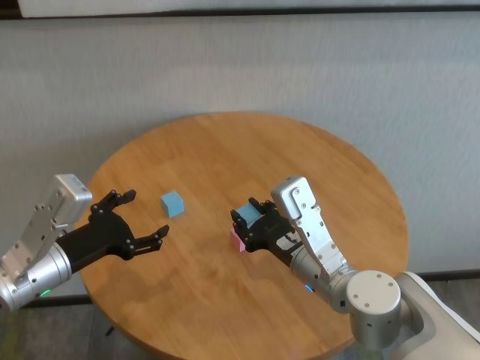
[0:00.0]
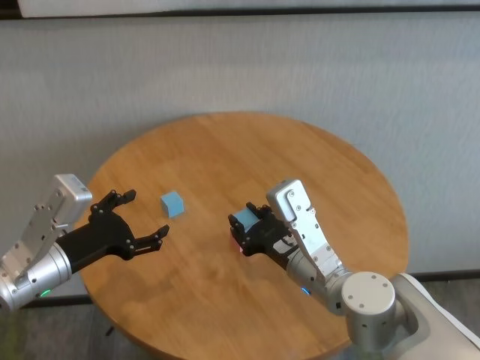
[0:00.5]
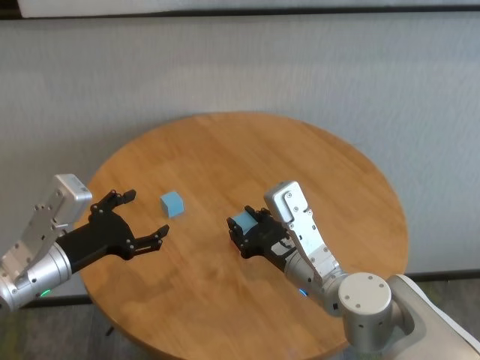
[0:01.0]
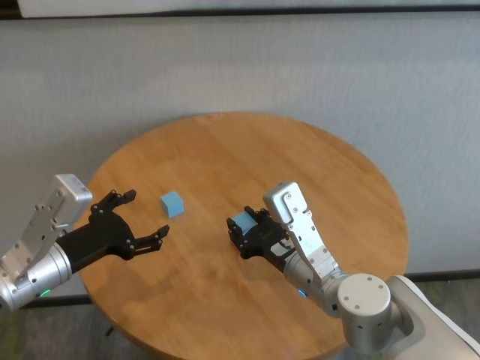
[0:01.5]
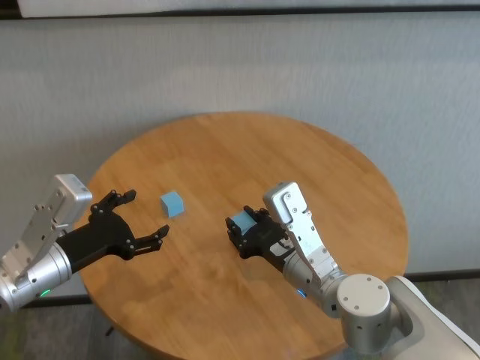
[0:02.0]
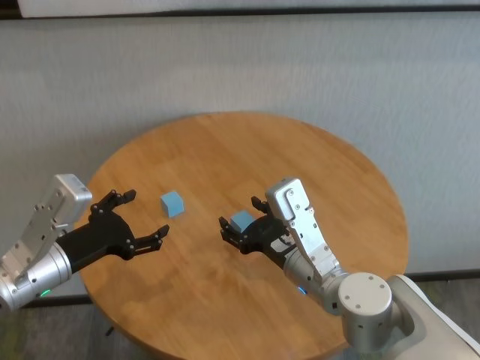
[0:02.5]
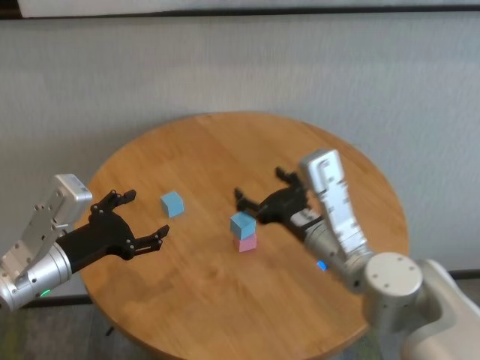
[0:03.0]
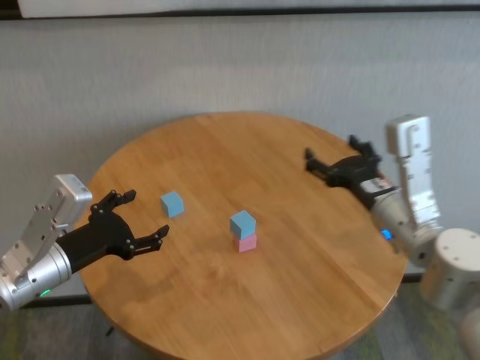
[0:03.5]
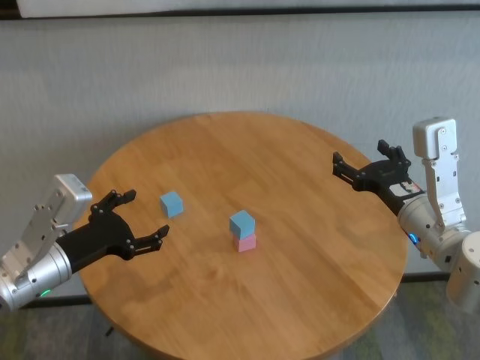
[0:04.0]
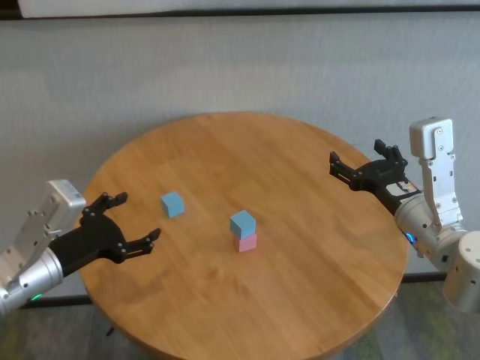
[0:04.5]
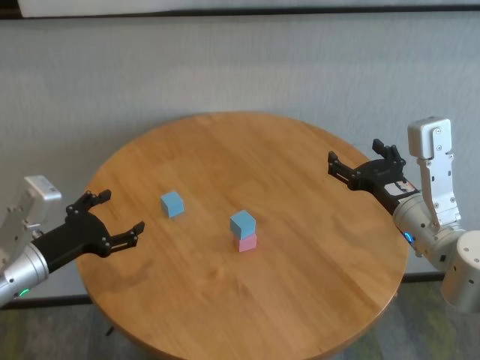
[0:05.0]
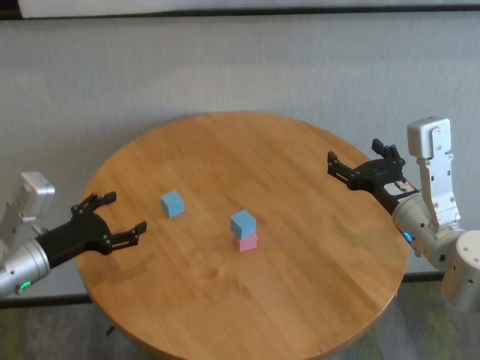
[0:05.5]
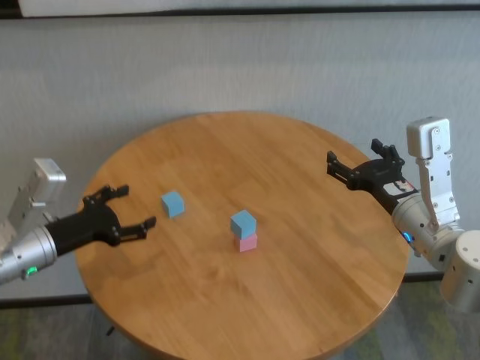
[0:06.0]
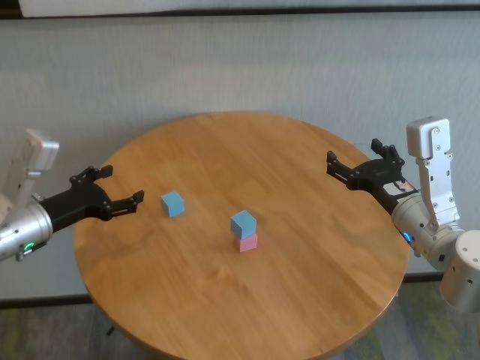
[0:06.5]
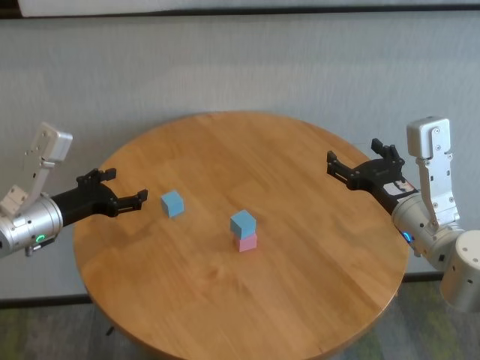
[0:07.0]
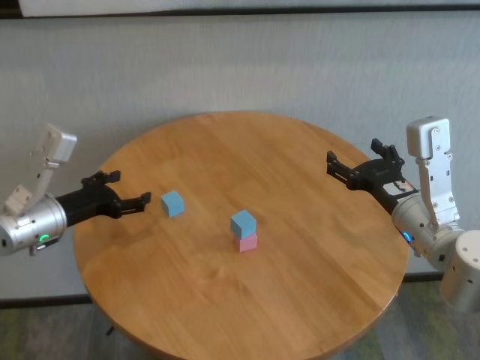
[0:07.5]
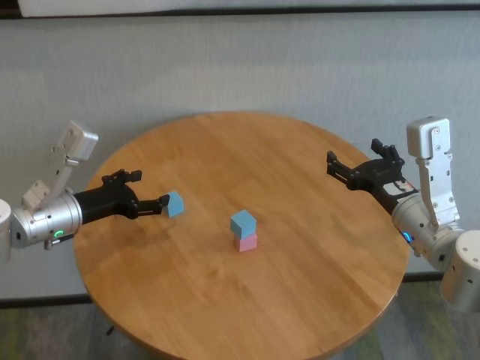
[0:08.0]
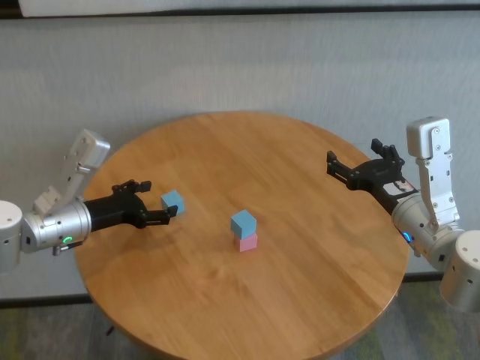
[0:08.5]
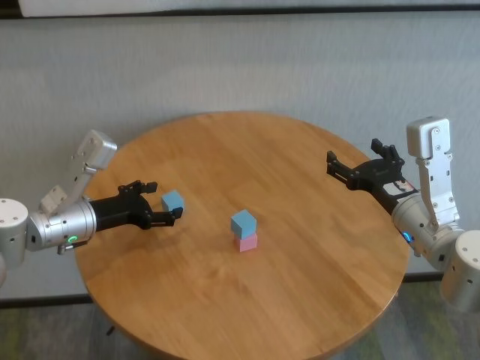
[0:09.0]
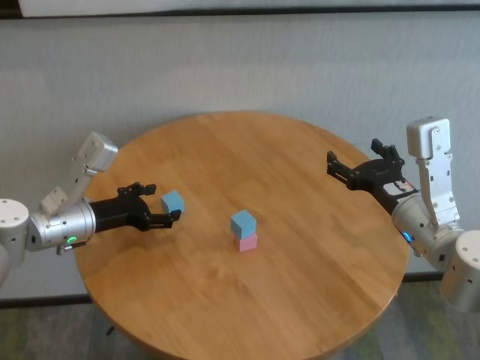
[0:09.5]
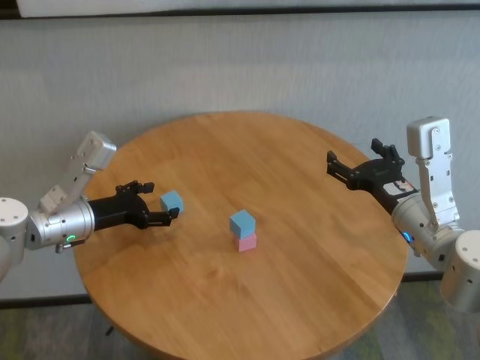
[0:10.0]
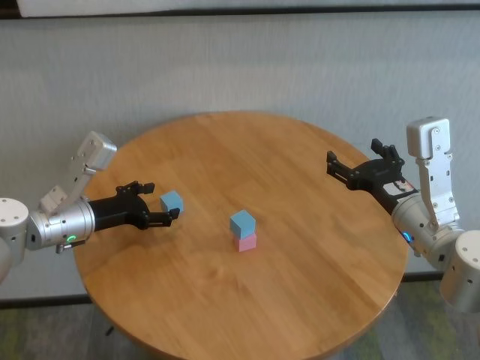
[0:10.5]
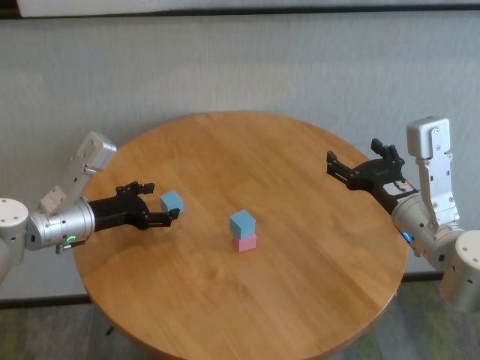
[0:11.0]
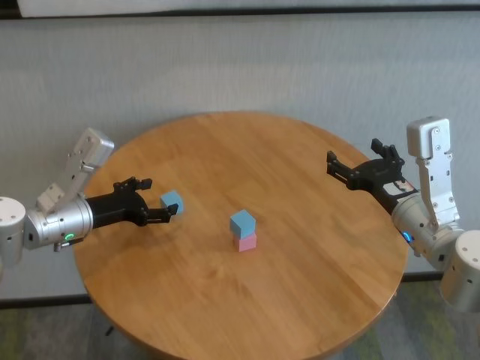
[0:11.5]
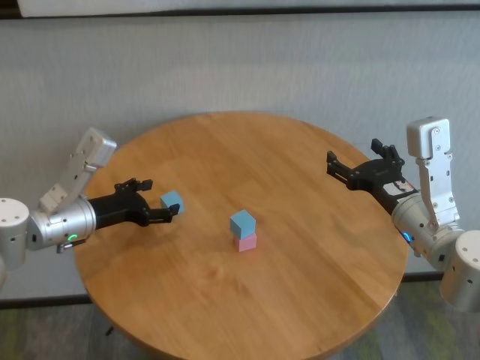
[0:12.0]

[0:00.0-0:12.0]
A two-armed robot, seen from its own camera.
Task of the whole recording: stack building blocks on the table.
Step, 0:00.0 to 0:02.0: Place the blue building block on the pink building blocks with right gripper.

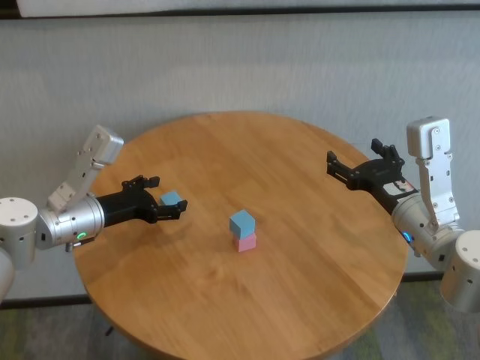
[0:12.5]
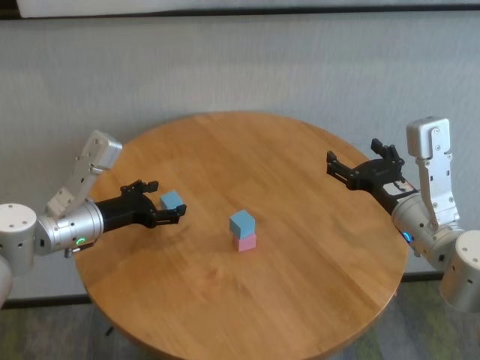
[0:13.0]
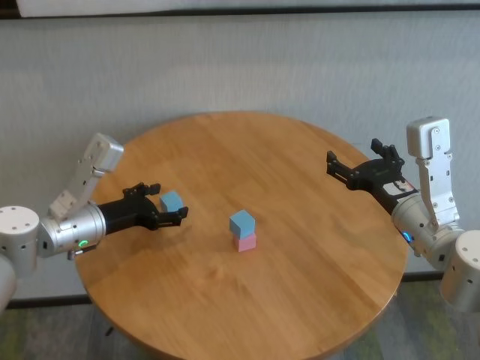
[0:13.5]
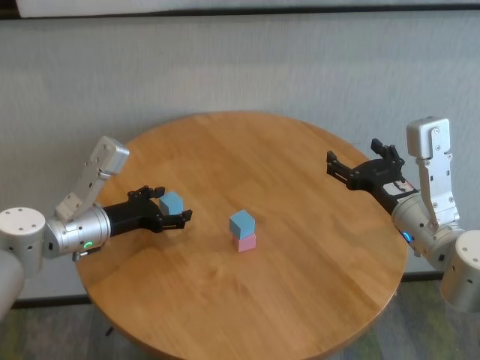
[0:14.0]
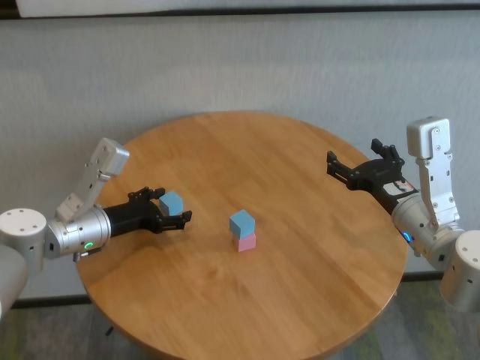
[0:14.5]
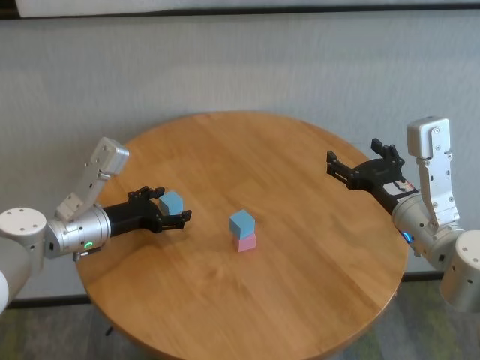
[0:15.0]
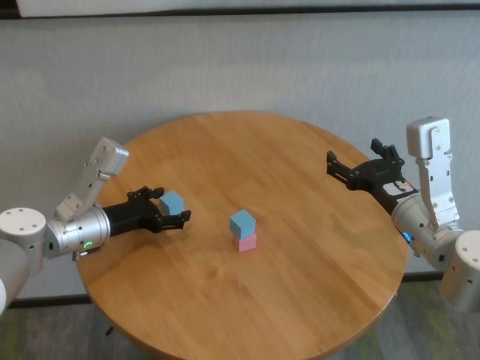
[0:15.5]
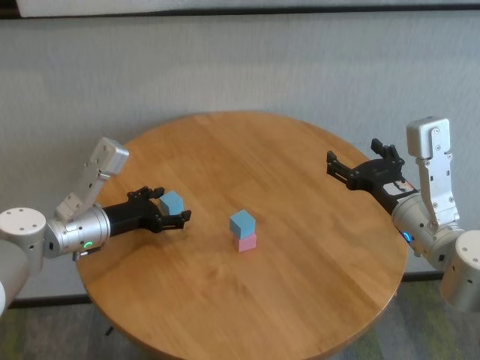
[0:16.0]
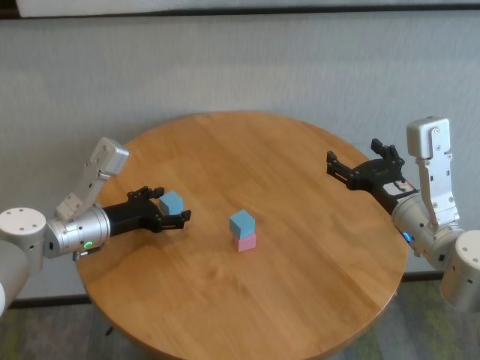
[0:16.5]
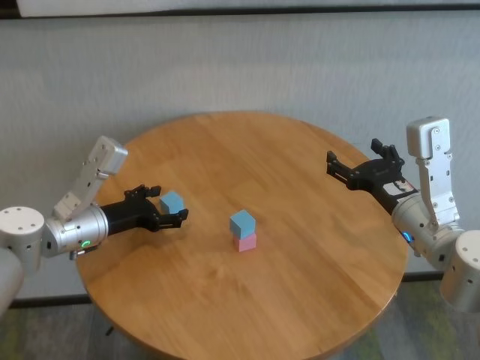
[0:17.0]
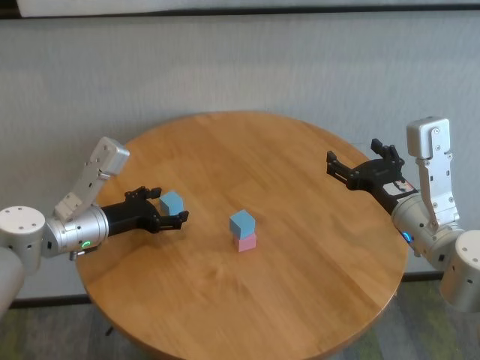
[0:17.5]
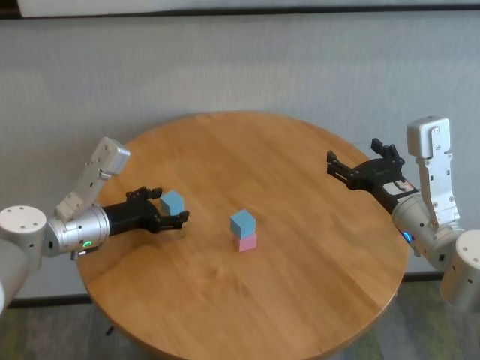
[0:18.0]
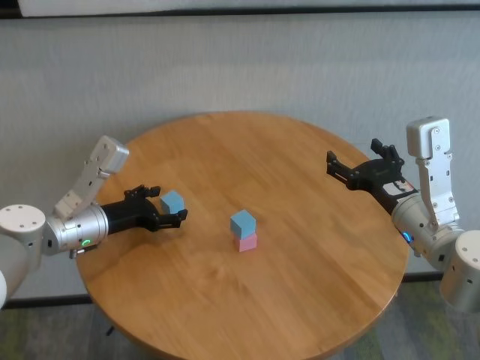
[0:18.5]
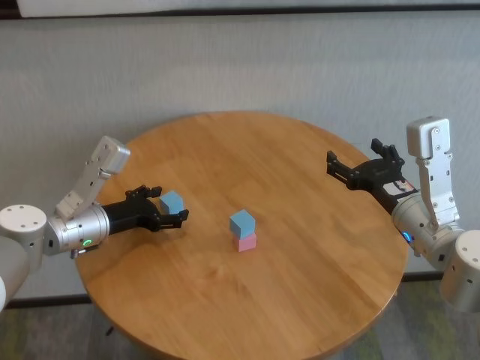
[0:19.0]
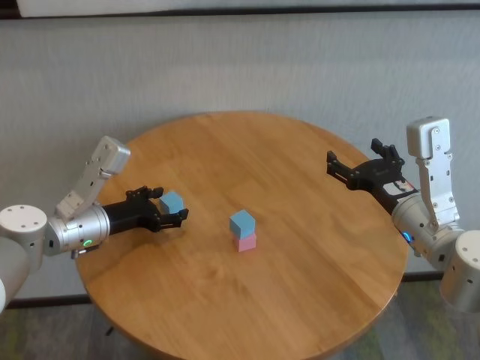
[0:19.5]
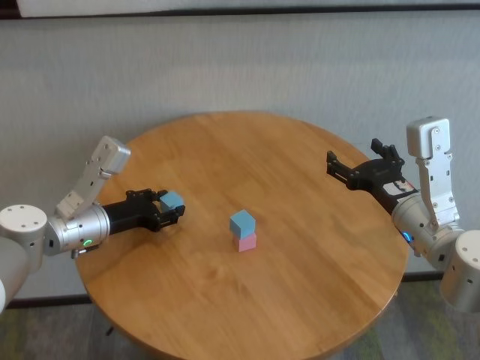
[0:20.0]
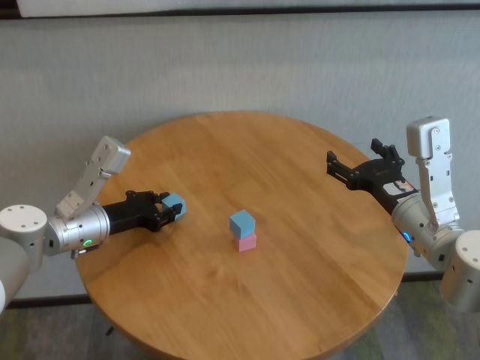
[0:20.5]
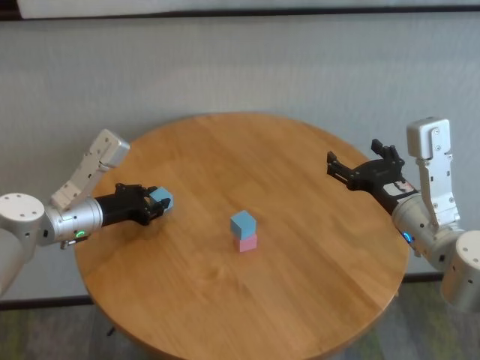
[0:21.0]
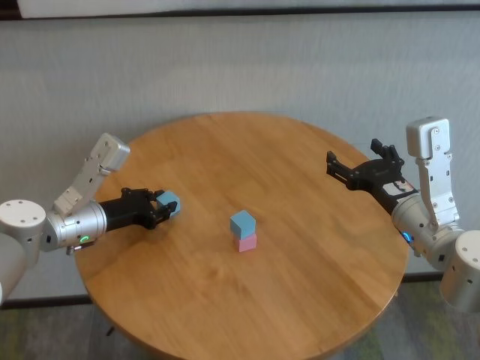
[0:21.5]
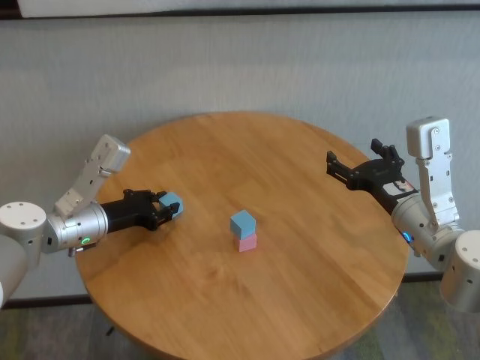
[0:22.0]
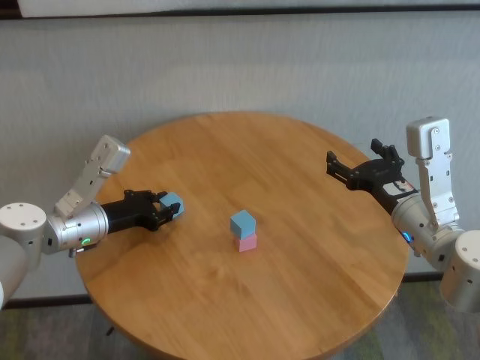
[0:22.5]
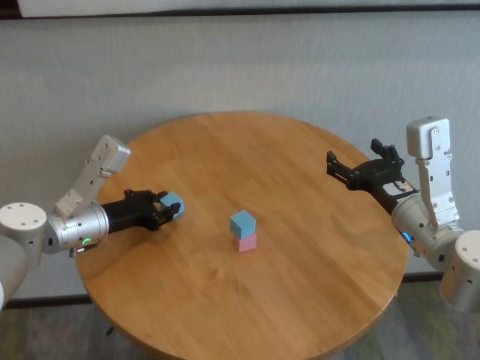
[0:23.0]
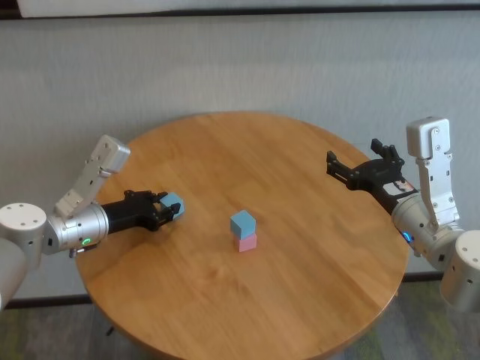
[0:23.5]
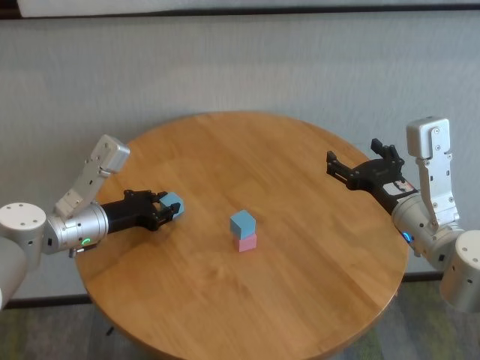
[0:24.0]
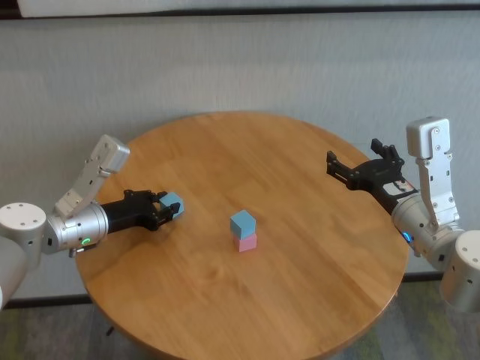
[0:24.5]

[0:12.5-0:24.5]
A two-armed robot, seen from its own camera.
Task of the whole recording: stack building blocks on the table.
Step, 0:12.5 to 0:20.0: Grasp the blue building block with left gripper.

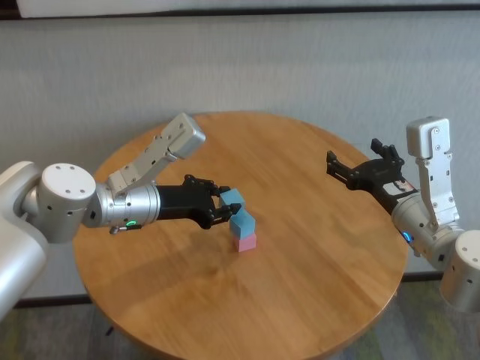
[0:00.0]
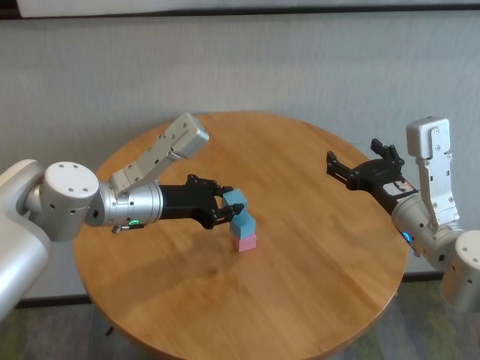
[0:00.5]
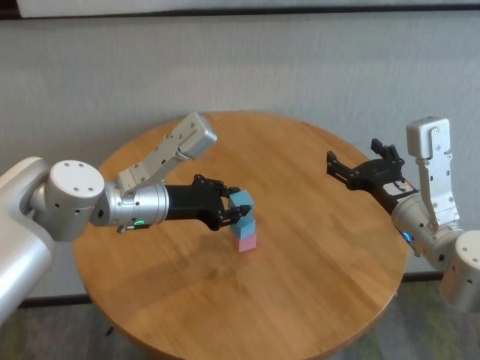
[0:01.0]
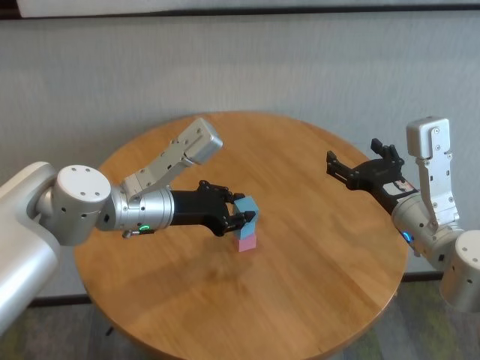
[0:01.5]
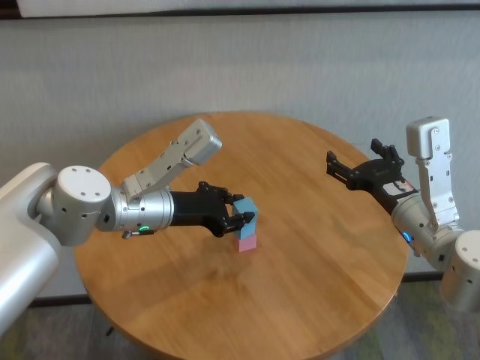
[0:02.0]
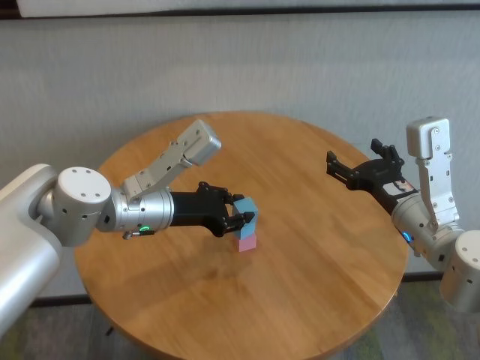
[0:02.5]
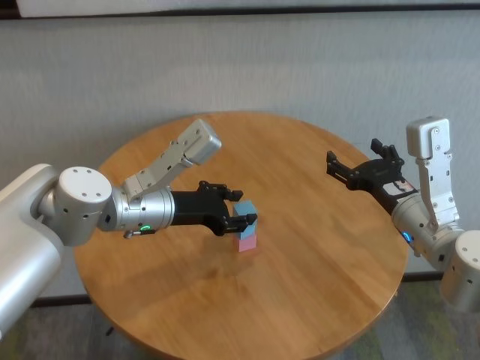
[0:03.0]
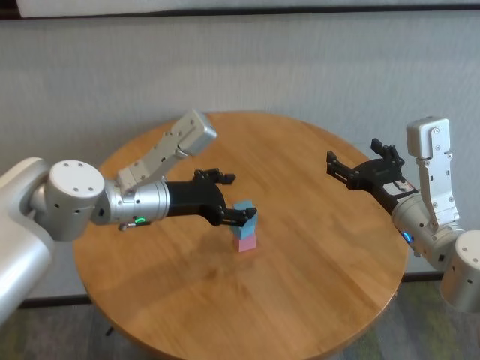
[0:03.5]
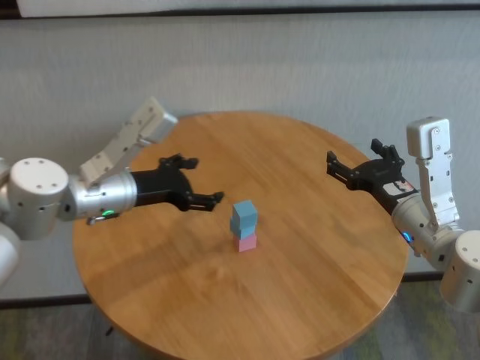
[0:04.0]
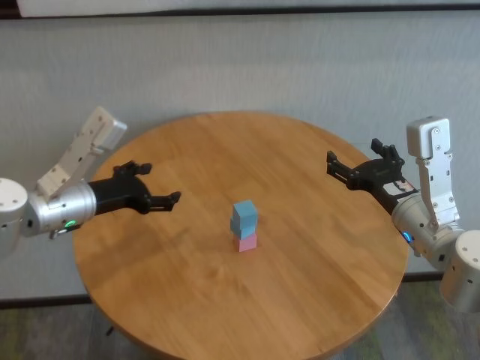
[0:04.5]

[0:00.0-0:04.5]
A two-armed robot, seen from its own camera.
Task of the whole recording: stack building blocks on the table.
Step, 0:00.0 to 0:03.0: Place the blue building block on the blue building blocks with left gripper.
